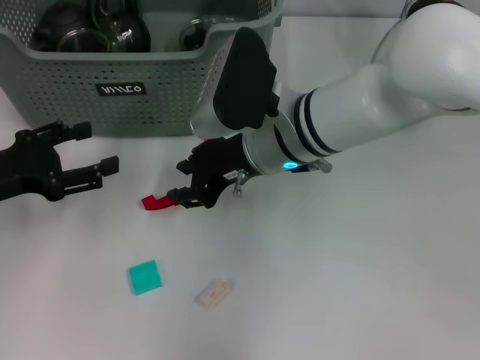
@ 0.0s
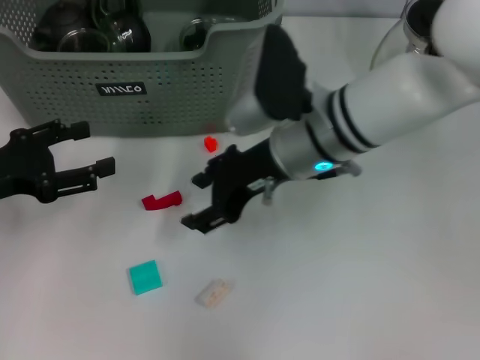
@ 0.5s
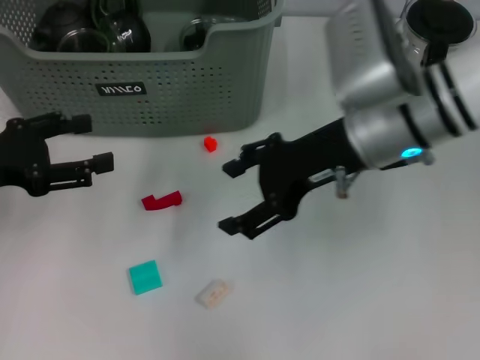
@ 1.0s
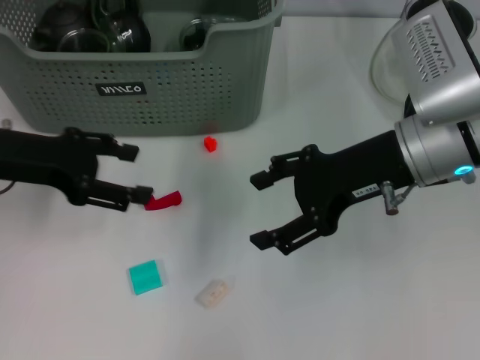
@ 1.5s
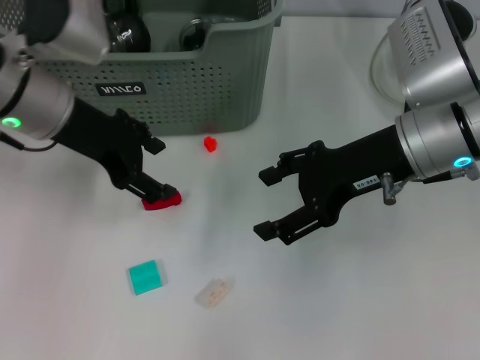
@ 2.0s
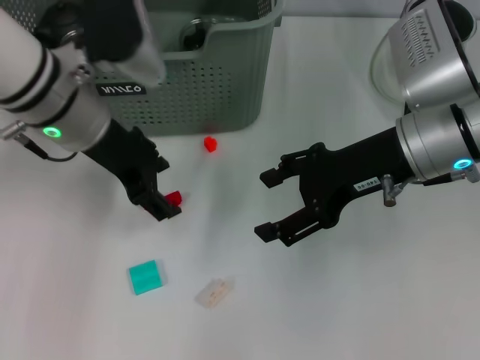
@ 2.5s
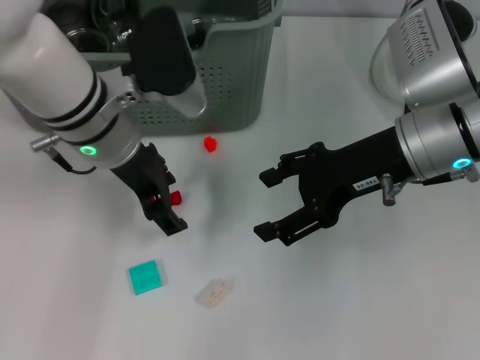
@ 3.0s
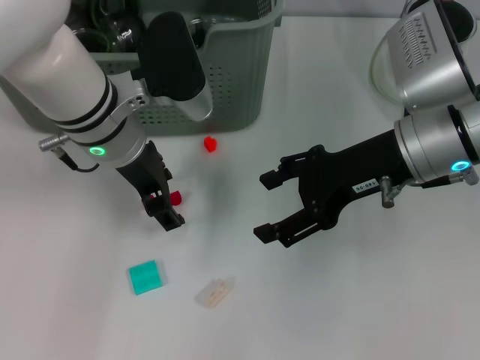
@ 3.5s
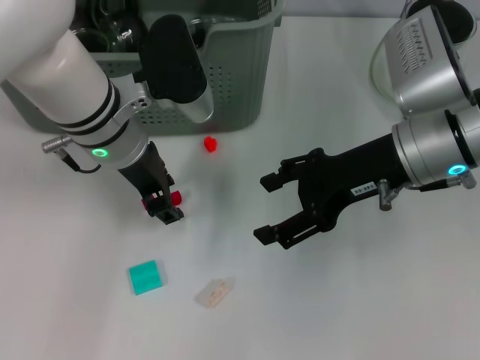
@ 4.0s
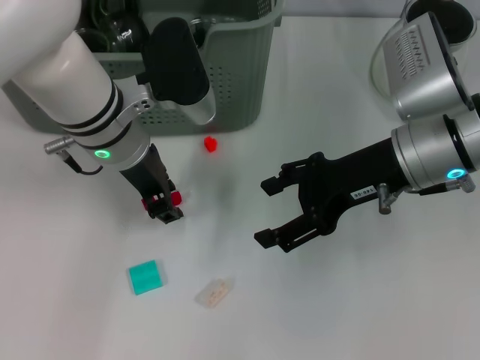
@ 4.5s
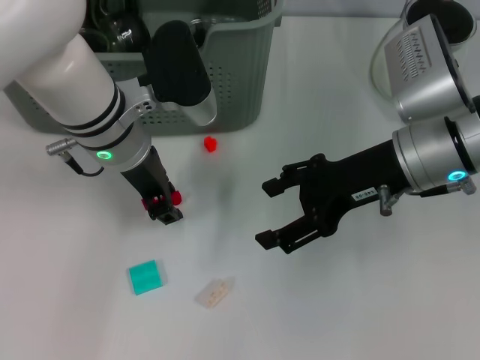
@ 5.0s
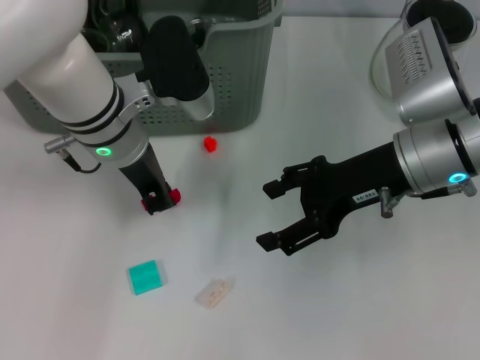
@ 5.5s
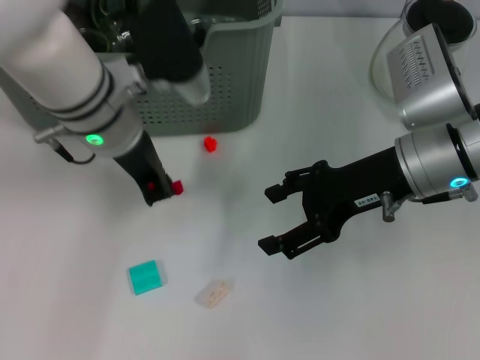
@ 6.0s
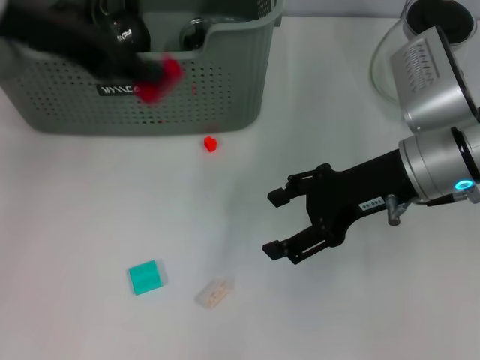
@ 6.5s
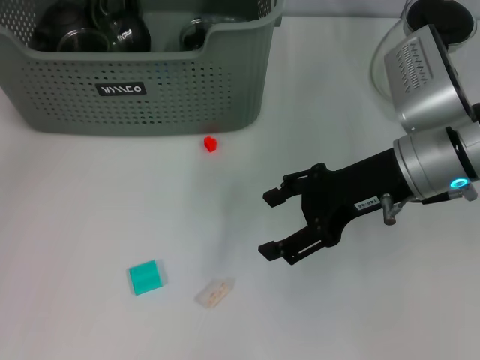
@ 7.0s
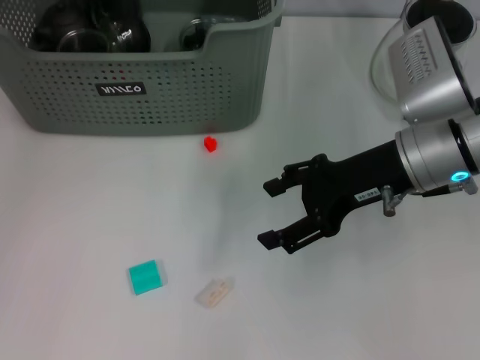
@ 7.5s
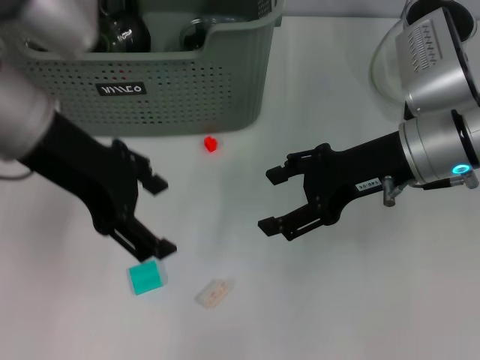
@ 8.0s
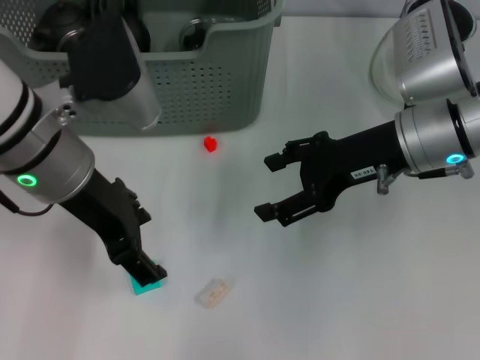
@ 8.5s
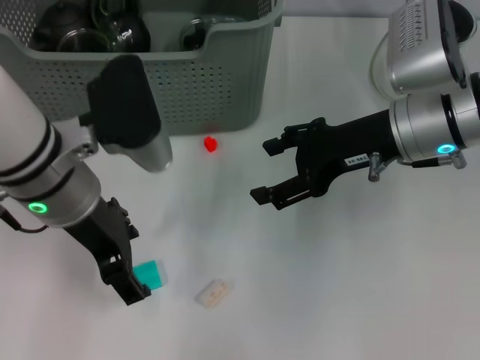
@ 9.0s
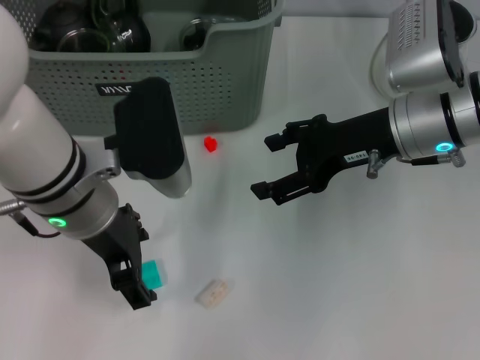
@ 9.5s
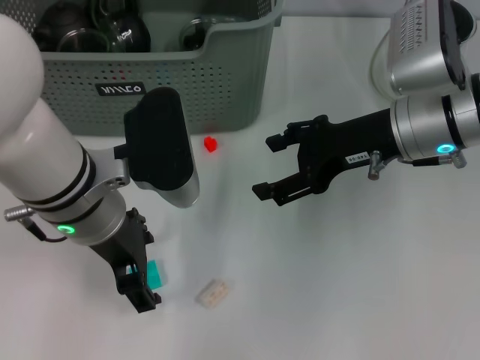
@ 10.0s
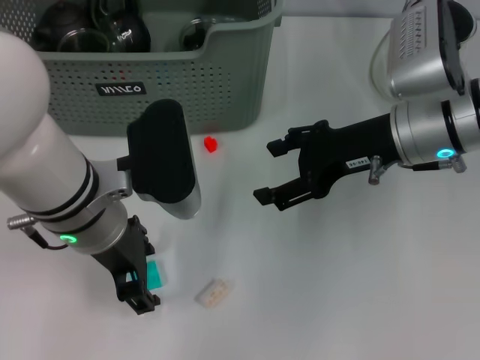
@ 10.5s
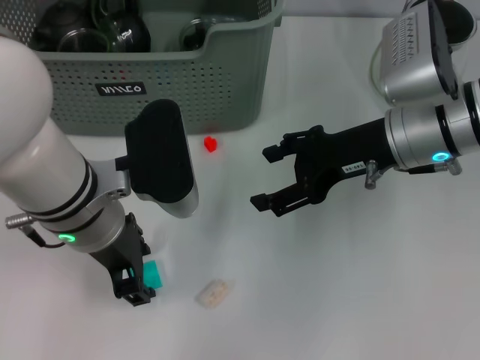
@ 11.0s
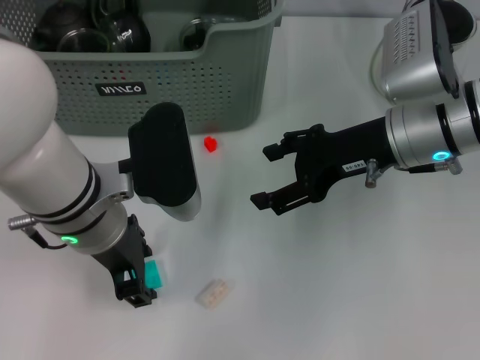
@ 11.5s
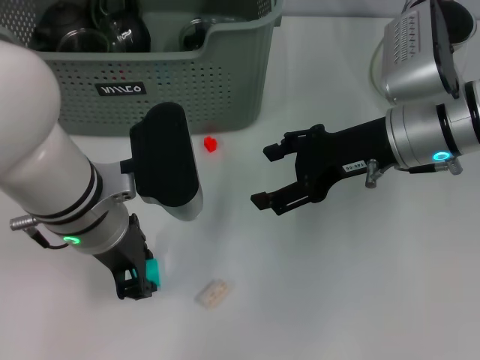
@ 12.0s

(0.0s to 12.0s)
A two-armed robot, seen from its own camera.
Task of the whole recording: pick up the teacup on the table and place it into the storage bin, pick up the block on the table and place it into the storage bin.
Step, 0.0s - 5.5s: Grasp the red block with left gripper.
Step, 6.0s - 7.0s: Place the red block in the storage box with left gripper.
0.0s - 2.0s: The right gripper goes approximately 15 cm to the right. The left gripper travels to the right, upward and forward by about 15 cm.
2.0s - 4.0s: The left gripper is displaced to the right by approximately 5 cm.
4.0s - 6.0s: The left gripper closes.
6.0s - 8.0s: The left gripper shifts roughly 10 cm upward, to the left and backward, and opens.
8.0s - 10.0s: The left gripper goes roughly 10 cm downward and to the right.
10.0s - 12.0s: The left gripper closes up.

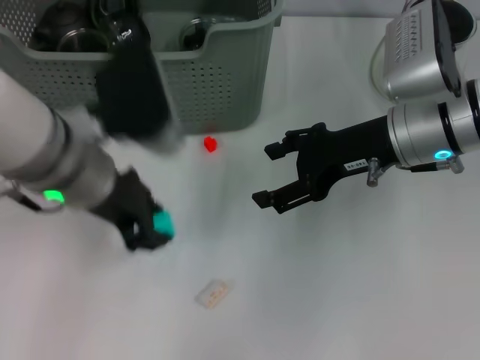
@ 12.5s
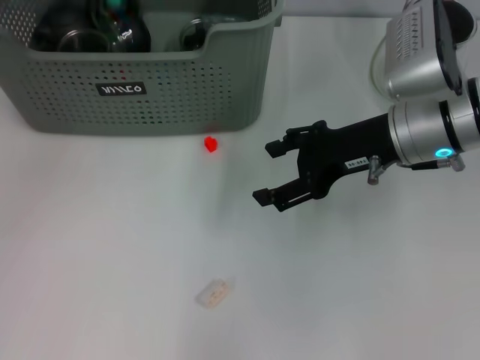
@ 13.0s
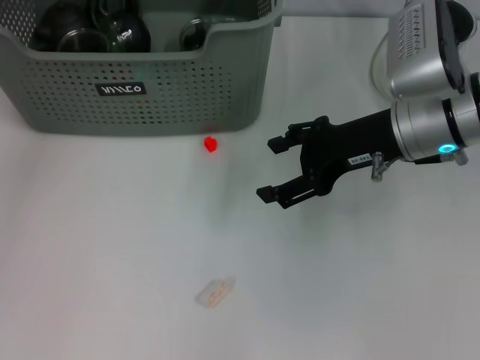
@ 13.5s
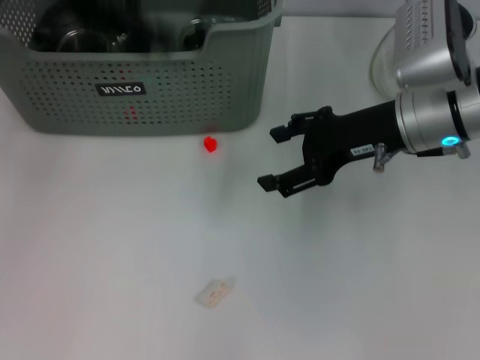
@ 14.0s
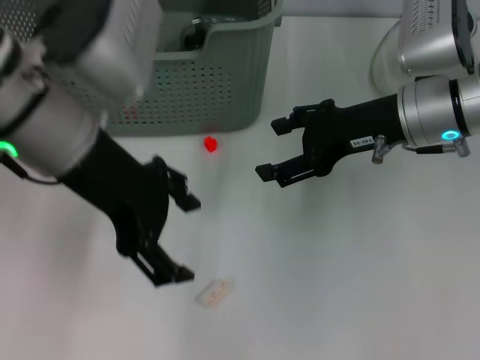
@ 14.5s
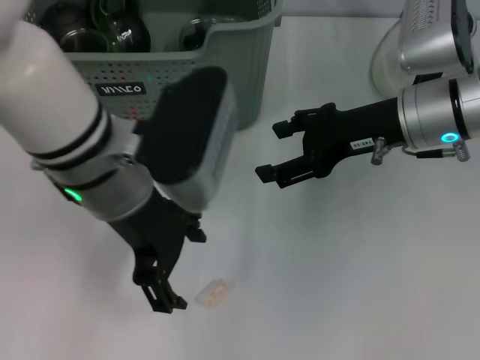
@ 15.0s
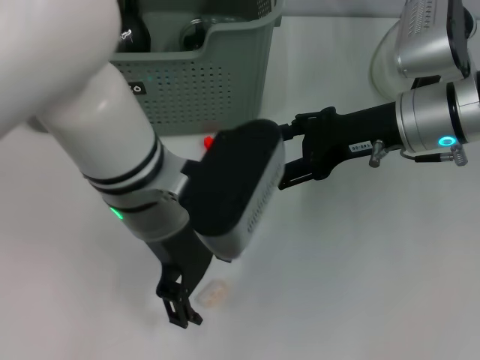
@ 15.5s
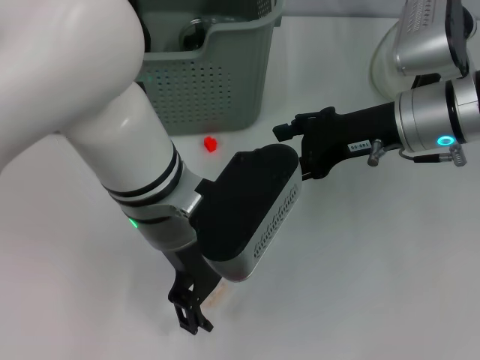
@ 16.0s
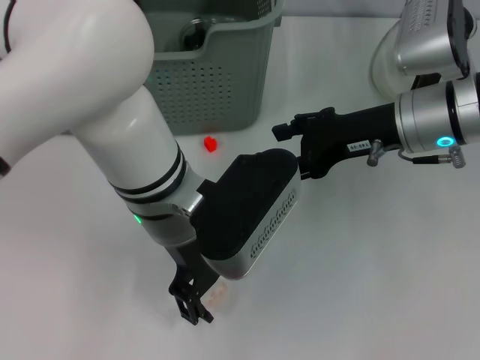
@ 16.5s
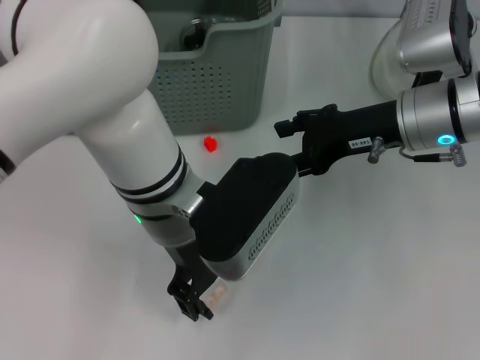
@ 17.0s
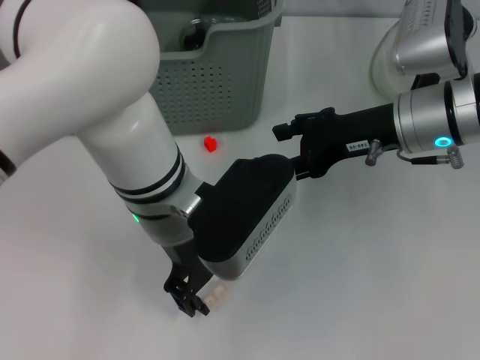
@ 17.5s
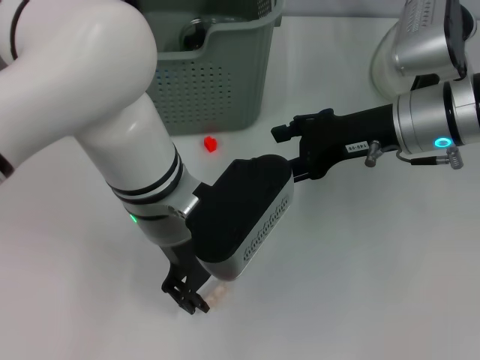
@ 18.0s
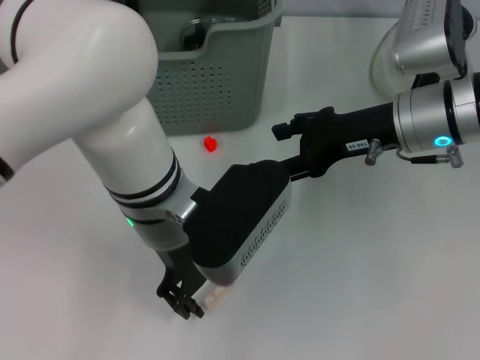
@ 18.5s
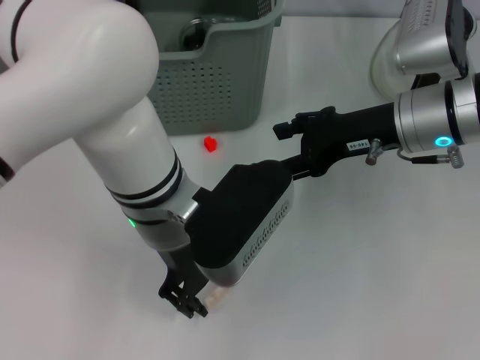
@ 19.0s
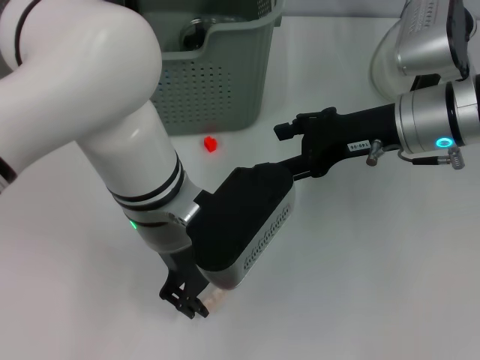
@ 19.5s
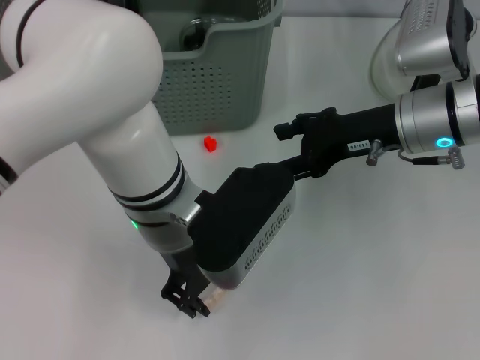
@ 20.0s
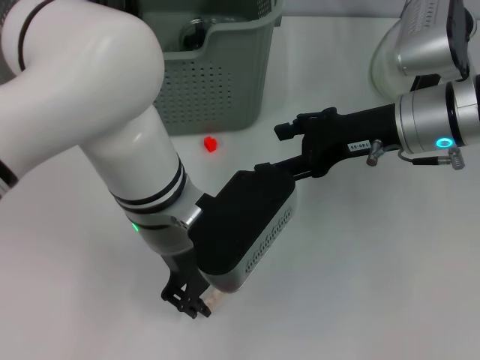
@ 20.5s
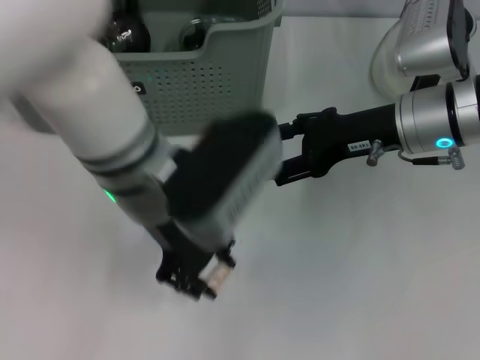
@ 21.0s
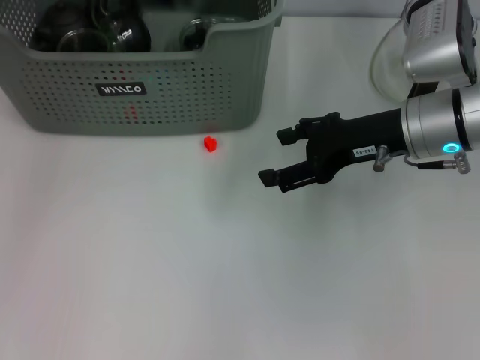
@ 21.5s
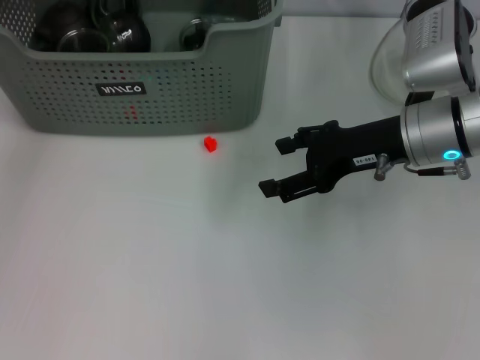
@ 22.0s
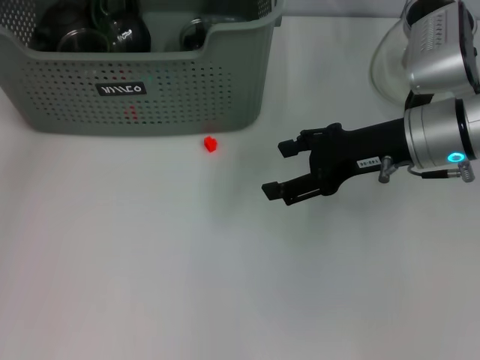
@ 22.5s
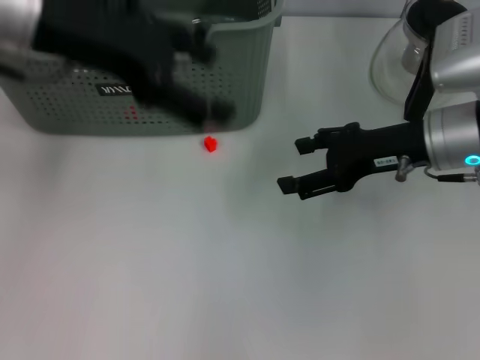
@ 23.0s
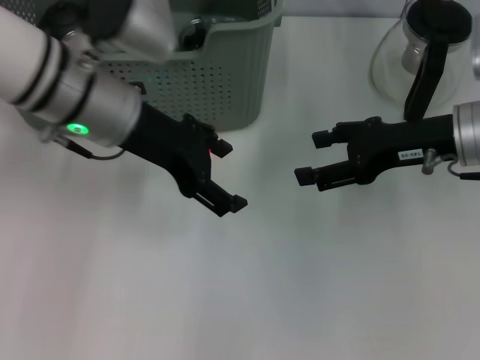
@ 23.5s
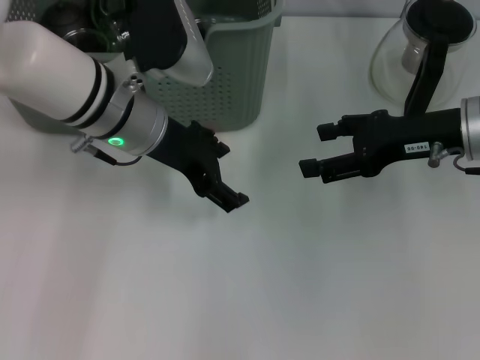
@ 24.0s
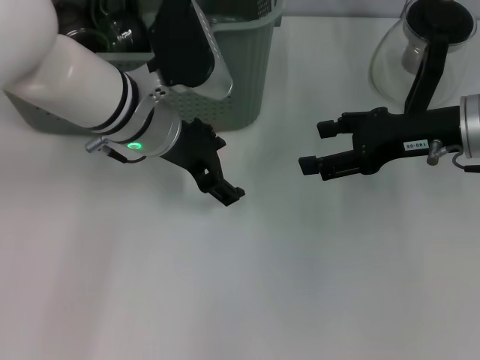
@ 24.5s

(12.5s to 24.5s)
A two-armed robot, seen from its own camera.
Task of the whole recording: pick up the teacup on the table and place it into the storage bin, pick up the block on the table and place it into the storage bin.
Step, 12.5s - 13.5s: Place the light blue block in the storage box with left gripper.
Step, 14.0s - 20.5s: Grasp the white block with left gripper.
Step, 21.0s - 22.0s: Place the white block in the storage box with left gripper.
12.5s - 14.5s: The left gripper goes roughly 5 cm upward, goes forward and returns, about 15 cm each way, and opens up.
14.5s - 16.5s: The left gripper is displaced to the right and downward by roughly 10 cm.
16.5s - 18.5s: The left gripper closes up.
18.5s - 20.5s: The two grippers keep their place.
20.5s - 22.5s: The left gripper heads to the left, forward and upward, covering approximately 30 cm, and opens up.
22.5s - 24.5s: The left gripper is displaced to the right, downward and backward by about 20 cm.

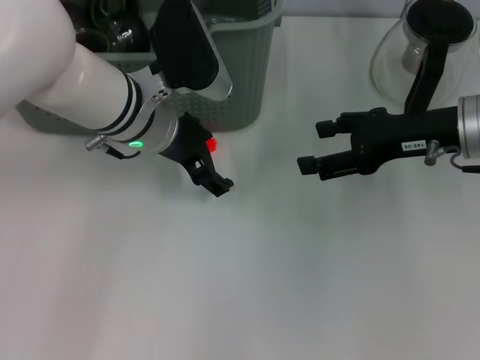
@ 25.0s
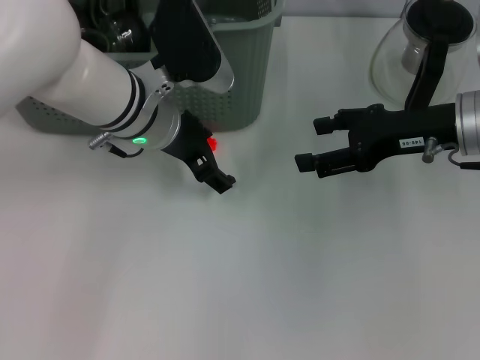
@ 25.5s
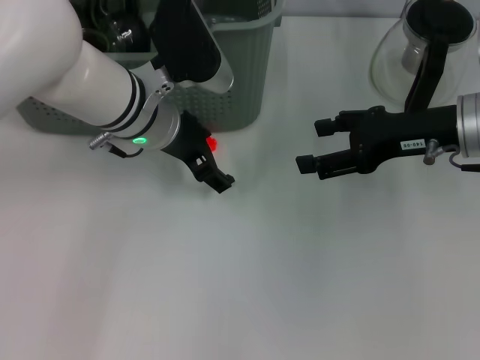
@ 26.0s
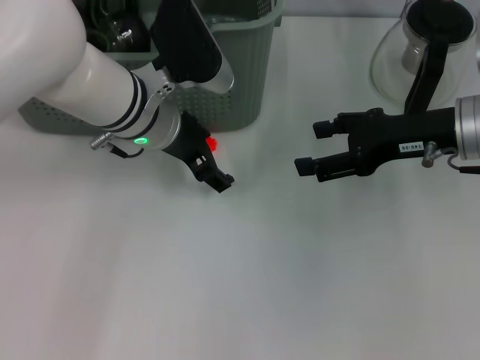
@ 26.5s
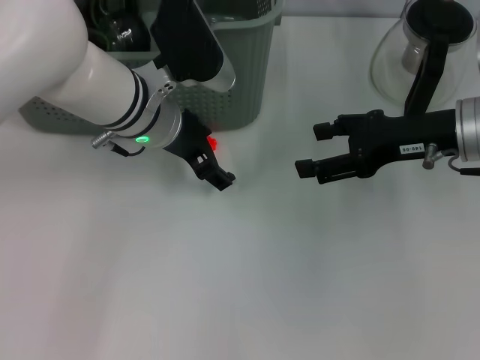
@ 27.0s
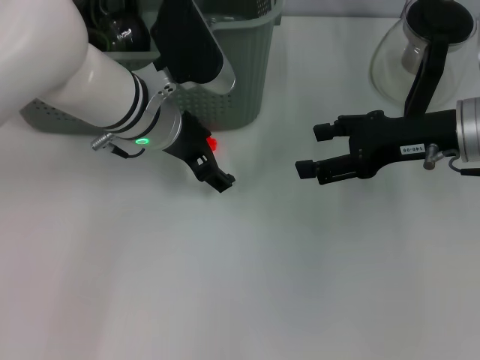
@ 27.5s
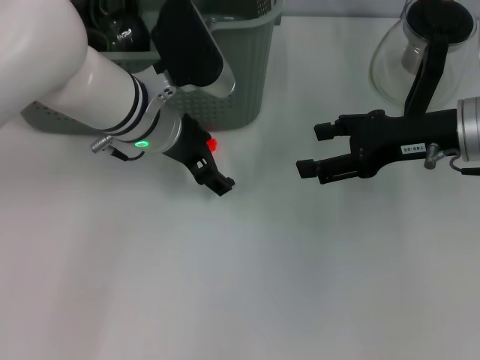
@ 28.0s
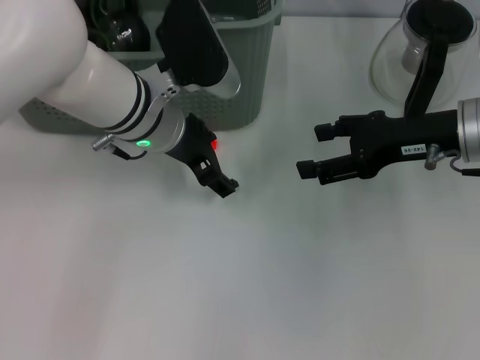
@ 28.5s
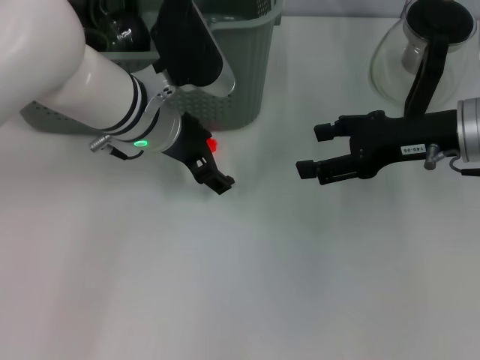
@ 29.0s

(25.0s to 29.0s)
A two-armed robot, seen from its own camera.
Task of the whole recording: pick up the teacup on the table and place it into the storage bin, pick up the block on the table and place it into the storage bin.
25.0s - 29.0s: Both grippers stay about where they are.
